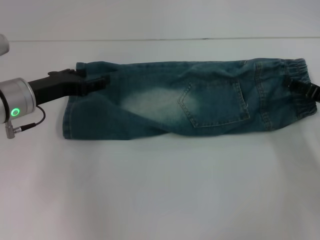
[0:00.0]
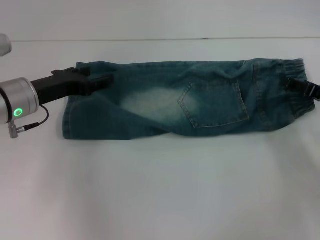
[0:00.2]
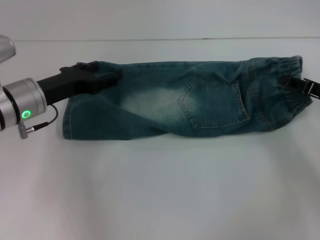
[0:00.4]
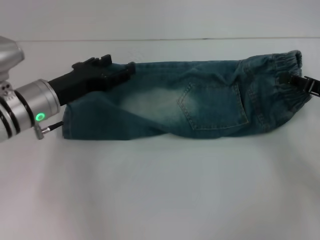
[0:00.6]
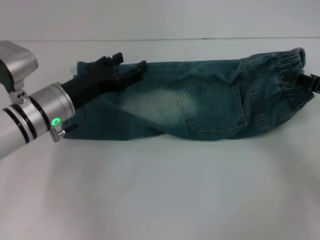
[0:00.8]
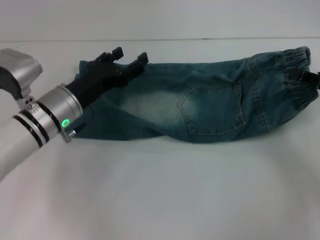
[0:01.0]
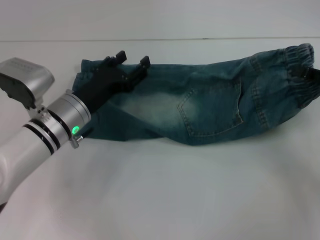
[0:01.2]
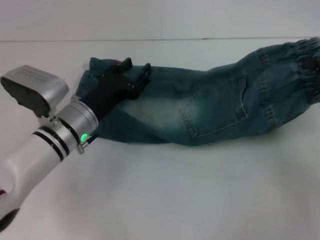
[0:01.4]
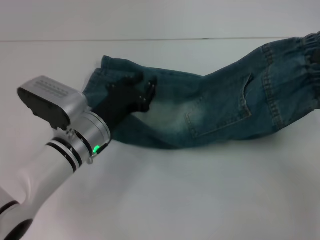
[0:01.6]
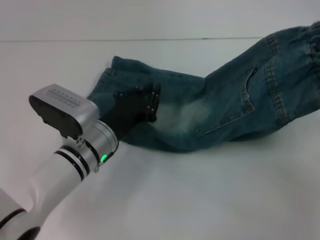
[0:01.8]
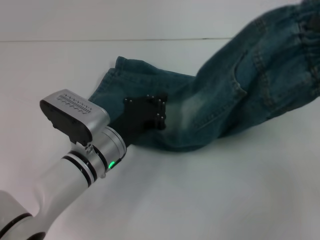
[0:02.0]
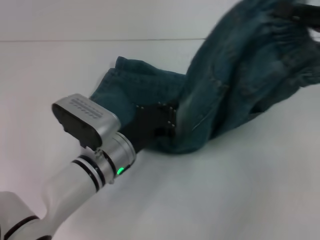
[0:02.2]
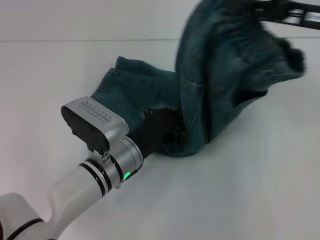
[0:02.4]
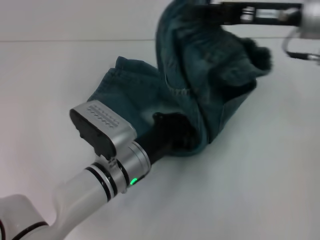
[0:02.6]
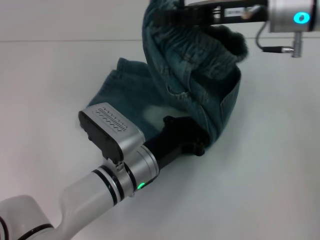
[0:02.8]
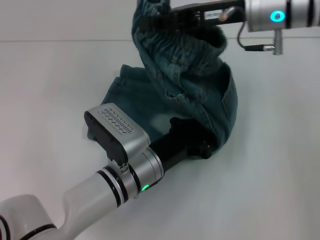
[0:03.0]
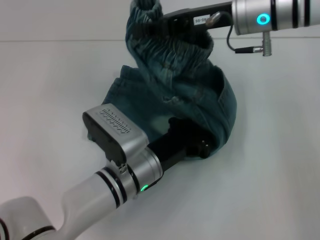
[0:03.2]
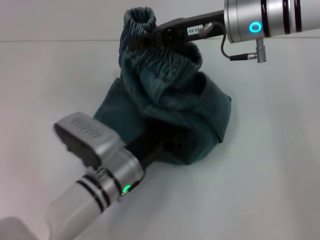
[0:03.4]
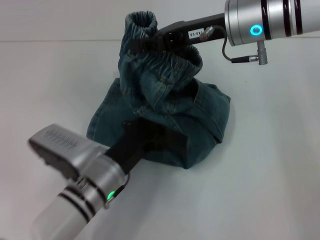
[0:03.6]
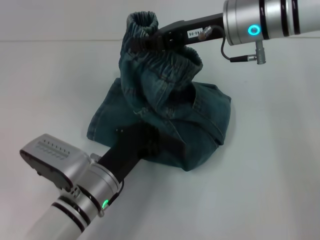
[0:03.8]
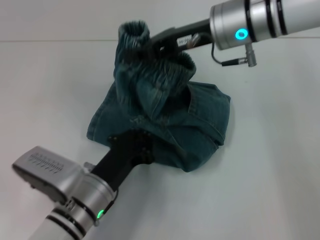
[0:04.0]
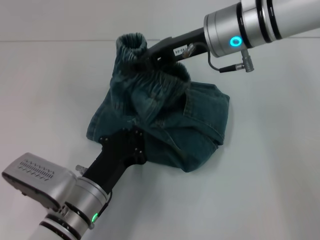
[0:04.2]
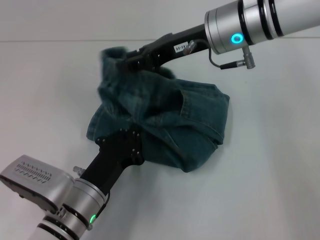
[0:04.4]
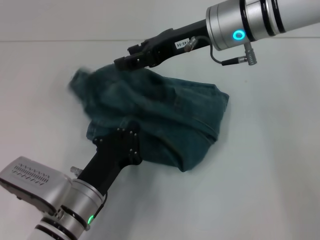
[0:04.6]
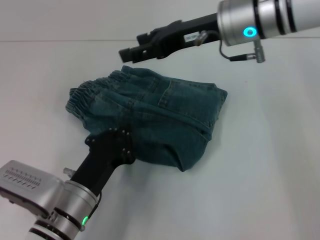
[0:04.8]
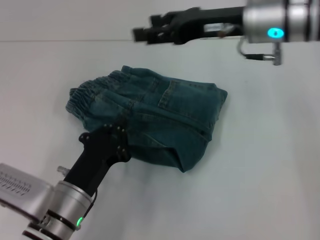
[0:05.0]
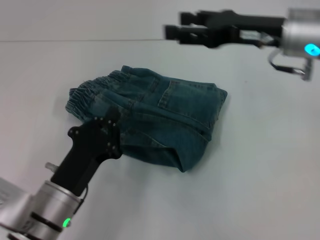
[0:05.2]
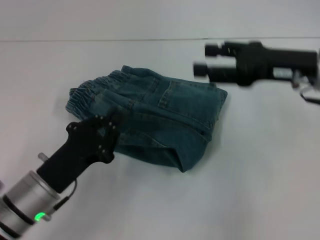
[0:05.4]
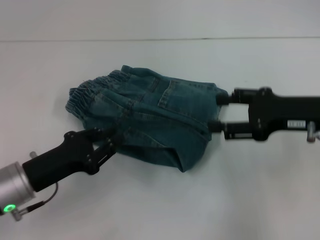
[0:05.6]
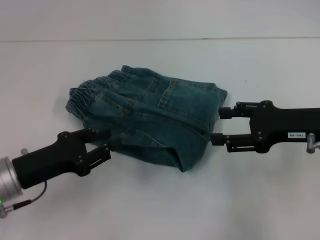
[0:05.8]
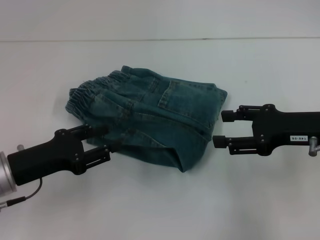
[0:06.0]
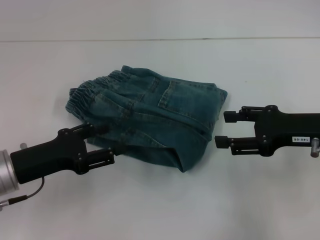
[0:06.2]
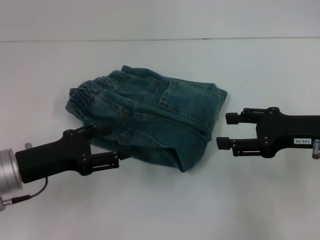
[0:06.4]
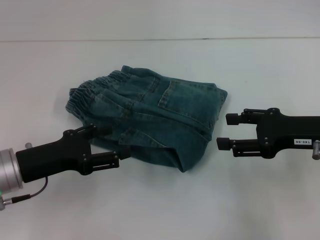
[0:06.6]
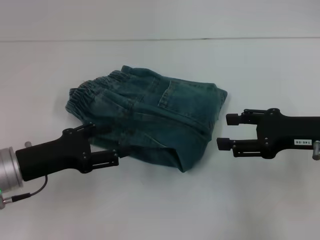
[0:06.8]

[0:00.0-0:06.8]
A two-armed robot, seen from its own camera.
Step, 0.6 to 3.0 s: Press the middle of the pants with your left hand.
Step, 3.2 to 4.6 s: Fold to the left with your right hand.
0.0 to 1.4 s: The left gripper moves to the right and downward, some 10 cm. Meanwhile the right gripper travels upward by about 5 cm, and closes its fingers.
1.4 to 2.8 s: The right gripper moves to the left, upward and forward, approximately 25 cm. Meanwhile the left gripper is displaced to the right and backward by about 10 cm, and closes its fingers.
2.8 to 4.0 s: Both grippers travel together to the left, some 5 cm.
4.0 to 5.4 s: The right gripper is displaced to the right and backward by some 15 cm, and opens its fingers, while the left gripper travels to the left by approximately 10 cm.
5.4 to 6.8 s: The left gripper ends up about 5 cm from where it was, and opens its fingers. Meanwhile the right gripper travels backward by roughly 5 cm.

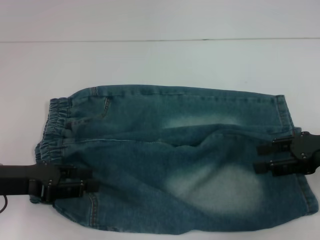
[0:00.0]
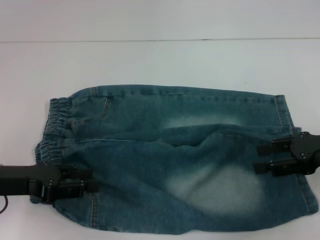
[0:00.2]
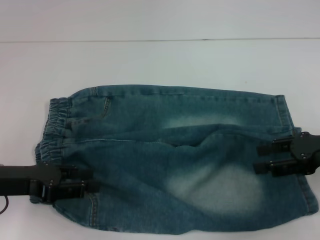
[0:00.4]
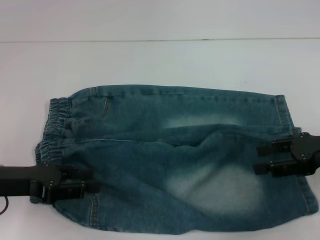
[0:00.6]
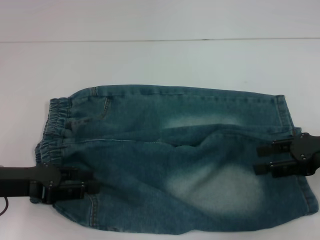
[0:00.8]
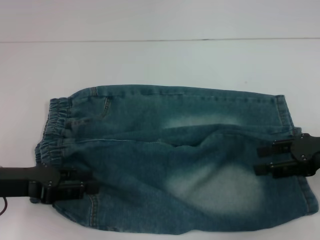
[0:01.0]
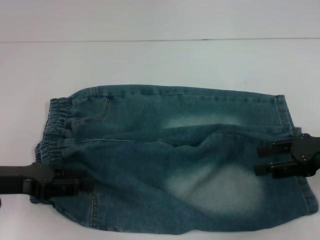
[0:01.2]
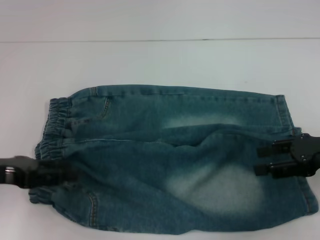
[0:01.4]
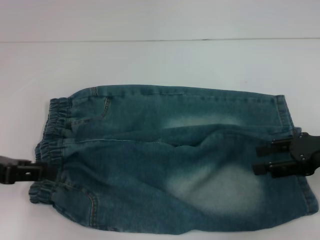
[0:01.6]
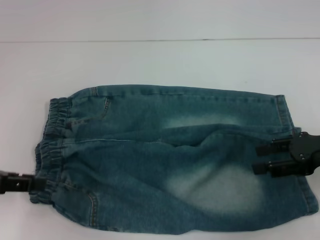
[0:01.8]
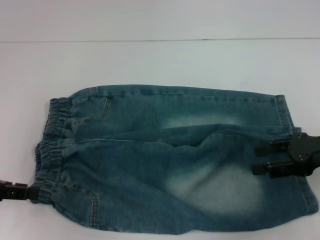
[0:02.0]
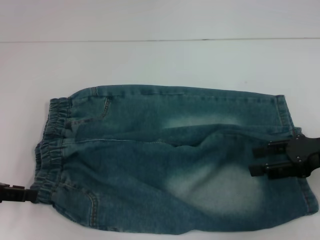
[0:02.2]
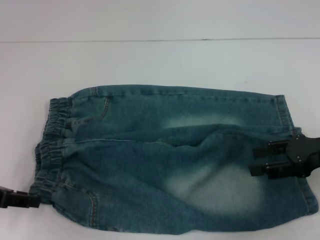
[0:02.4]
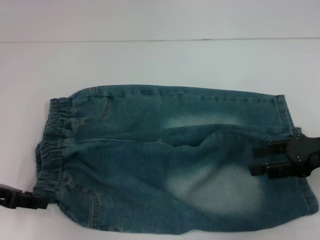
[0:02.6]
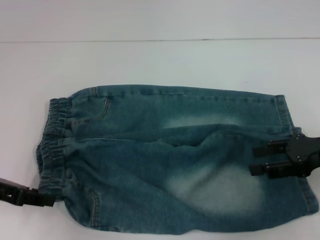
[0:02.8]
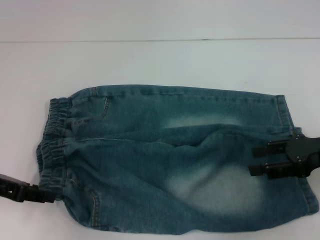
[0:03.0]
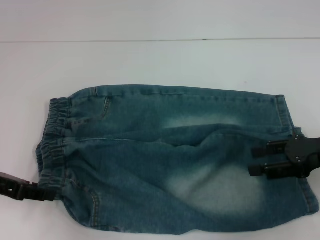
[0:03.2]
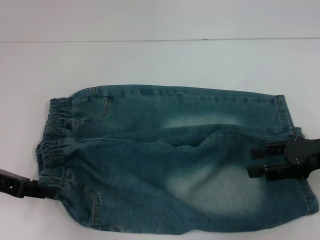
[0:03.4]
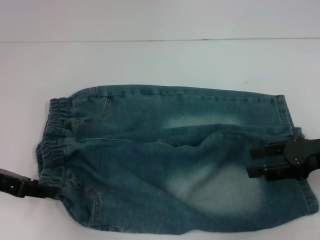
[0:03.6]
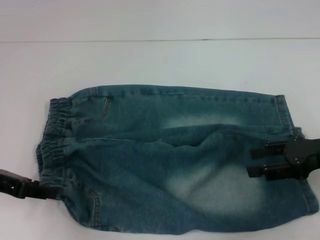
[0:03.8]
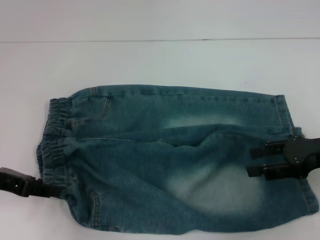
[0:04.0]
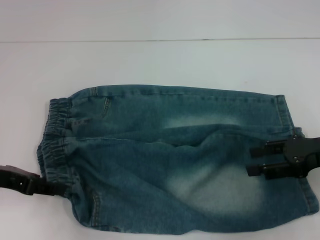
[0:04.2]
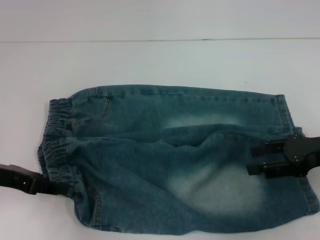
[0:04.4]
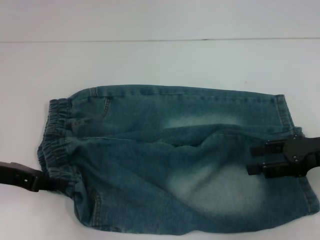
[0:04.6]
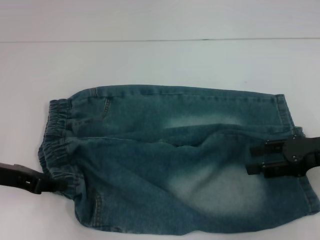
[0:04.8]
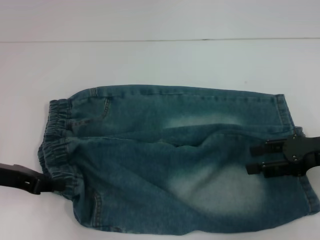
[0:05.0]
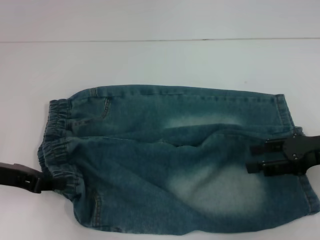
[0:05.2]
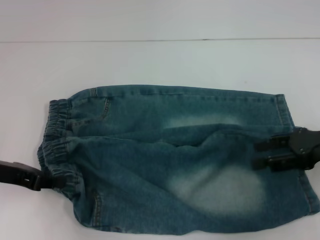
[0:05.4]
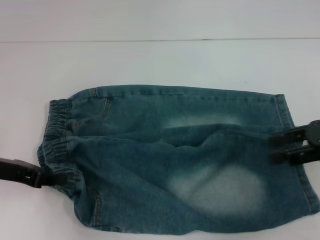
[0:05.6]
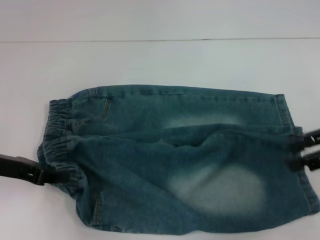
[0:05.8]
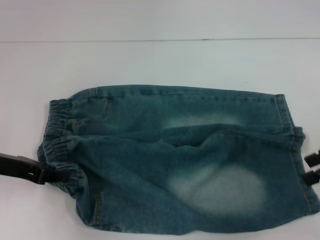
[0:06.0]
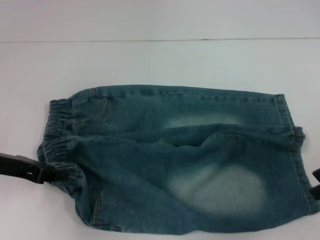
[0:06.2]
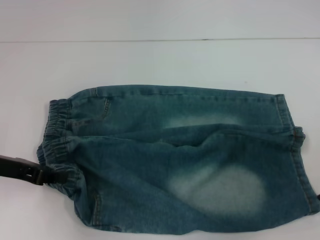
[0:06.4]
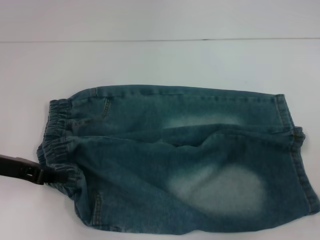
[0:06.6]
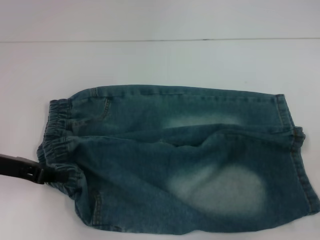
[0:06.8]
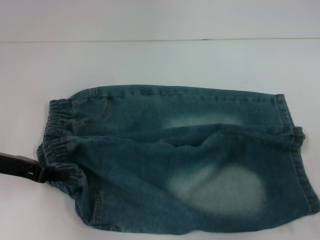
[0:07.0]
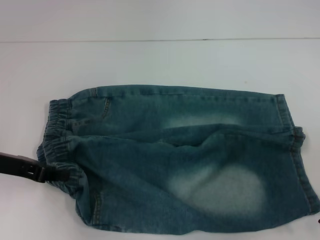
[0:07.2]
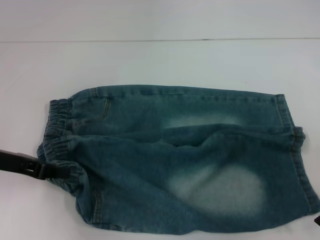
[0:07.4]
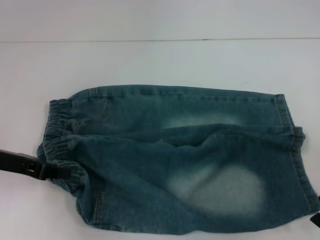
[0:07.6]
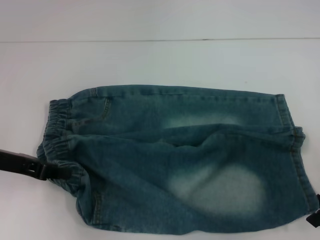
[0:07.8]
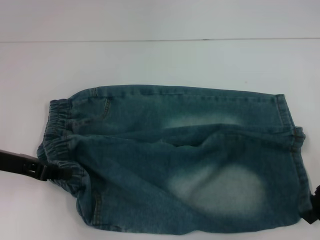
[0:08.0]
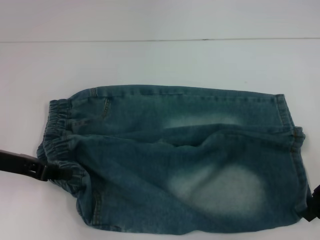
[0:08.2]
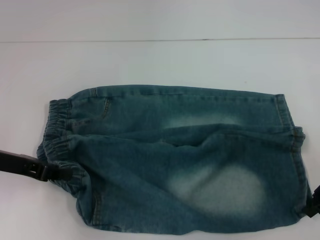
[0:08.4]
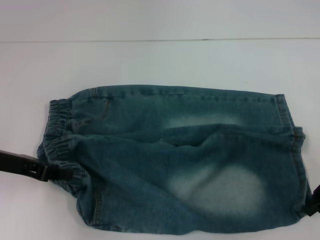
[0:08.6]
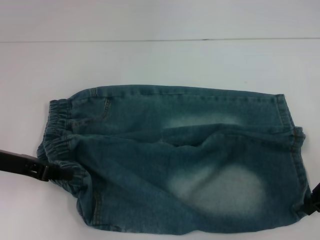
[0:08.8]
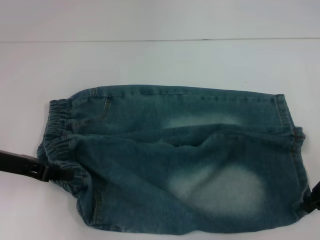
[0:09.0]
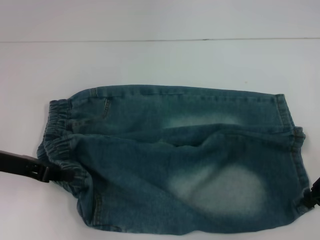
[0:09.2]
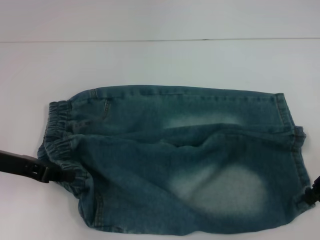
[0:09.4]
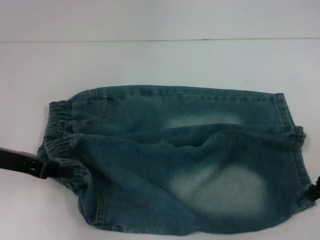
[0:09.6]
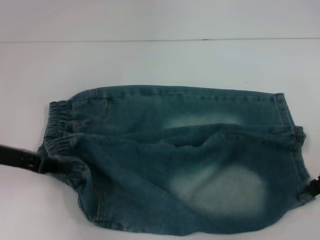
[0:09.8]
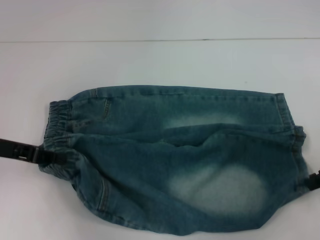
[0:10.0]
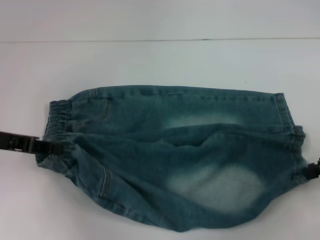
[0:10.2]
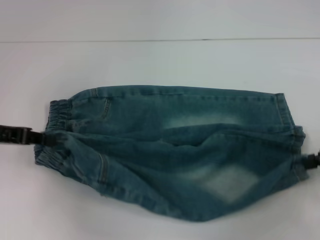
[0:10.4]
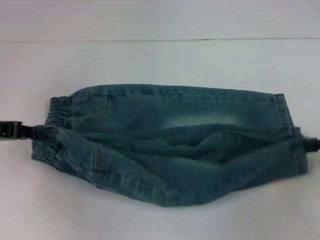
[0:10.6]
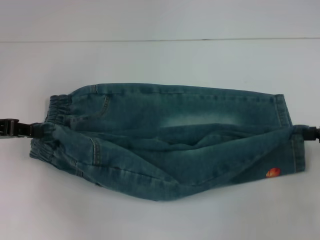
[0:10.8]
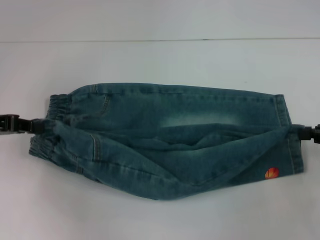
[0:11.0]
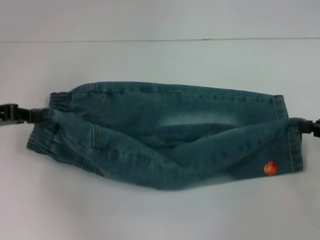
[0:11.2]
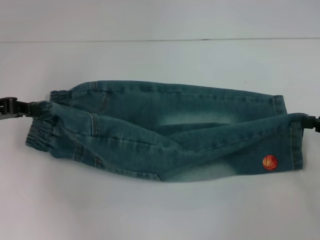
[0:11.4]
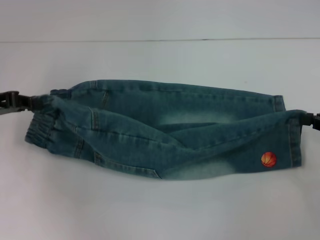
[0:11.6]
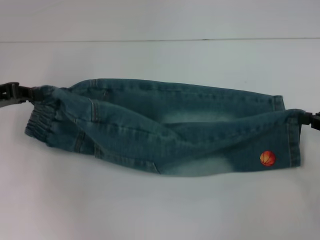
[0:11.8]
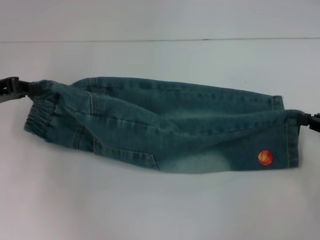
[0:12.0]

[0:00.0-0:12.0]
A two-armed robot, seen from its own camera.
Step, 0.0 to 5.6 s: Hold the lower left waistband with your left hand.
Step, 5.8 to 8.6 s: Grab the lower right pant leg with your right hand.
0.0 to 1.6 s: The left gripper shifts by roughly 5 cm.
1.6 to 4.4 s: The grippers move only a little.
4.4 to 6.0 s: The left gripper closes, while the right gripper shifts some 5 cm upward.
7.6 to 9.0 s: The right gripper closes its fingers.
9.0 to 10.4 s: The right gripper moves to the right, roughly 5 cm.

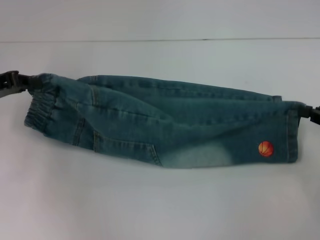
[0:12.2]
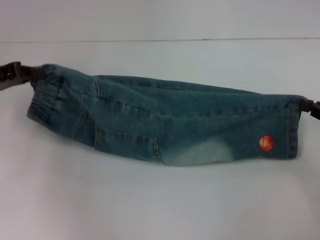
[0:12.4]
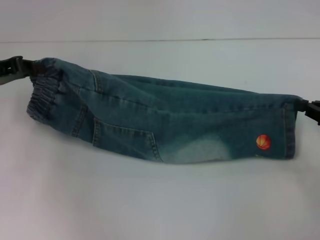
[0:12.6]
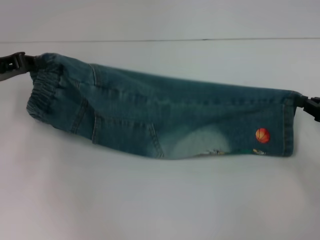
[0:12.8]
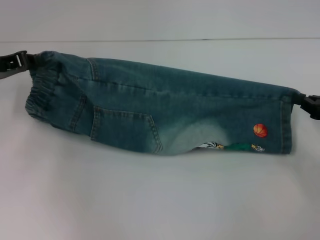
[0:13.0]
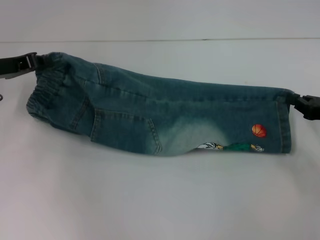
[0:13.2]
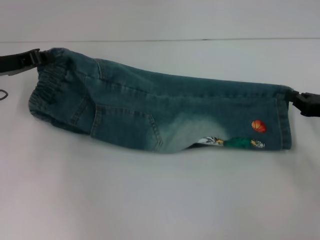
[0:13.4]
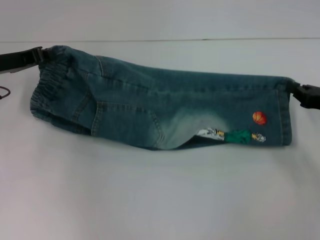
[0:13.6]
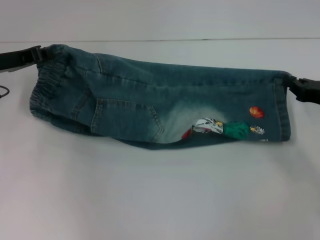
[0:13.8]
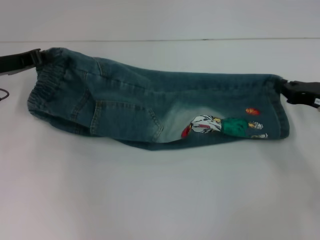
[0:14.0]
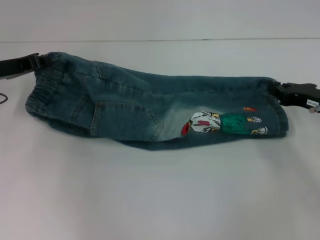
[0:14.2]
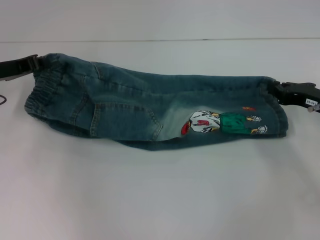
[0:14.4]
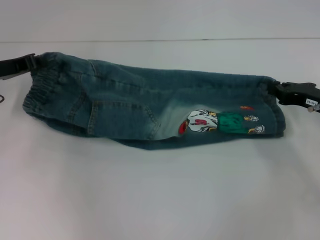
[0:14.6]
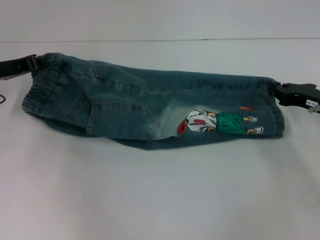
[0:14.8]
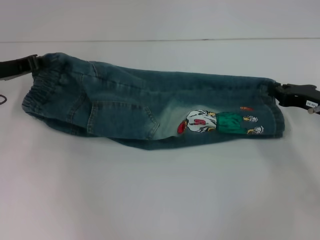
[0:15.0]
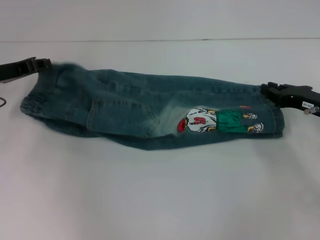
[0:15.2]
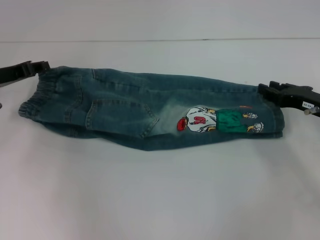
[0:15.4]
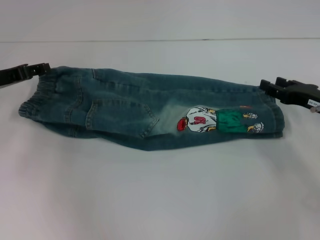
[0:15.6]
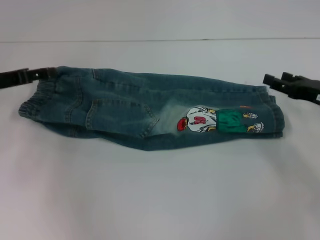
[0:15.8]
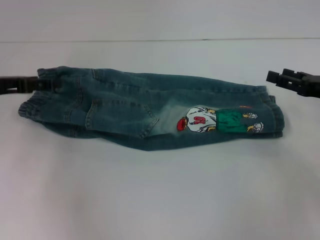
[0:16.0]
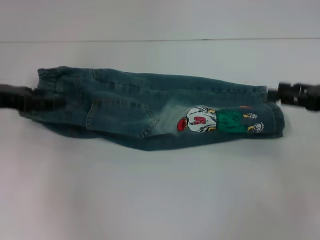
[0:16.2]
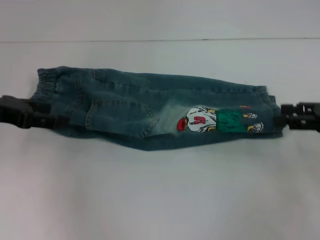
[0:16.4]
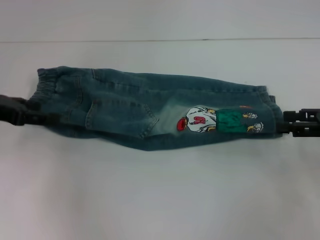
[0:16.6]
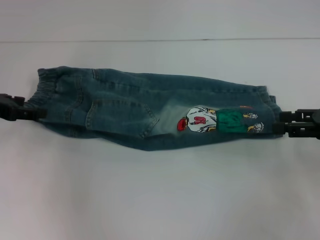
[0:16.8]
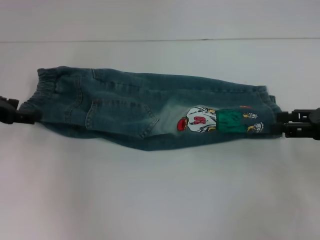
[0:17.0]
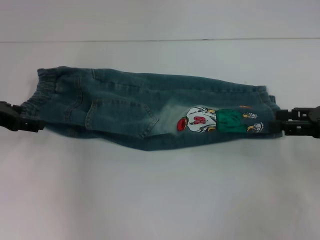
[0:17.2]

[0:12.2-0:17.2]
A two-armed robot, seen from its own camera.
Step, 12.2 to 15.6 s: Fold upward with your right hand.
12.2 to 13.8 s: The left gripper changes place by about 5 cm. Meanwhile the right gripper shifts by some 5 cm.
13.8 to 15.6 s: The right gripper opens up; the left gripper opens up.
15.6 to 17.2 s: The right gripper heads upward, covering approximately 5 cm, and opens up.
